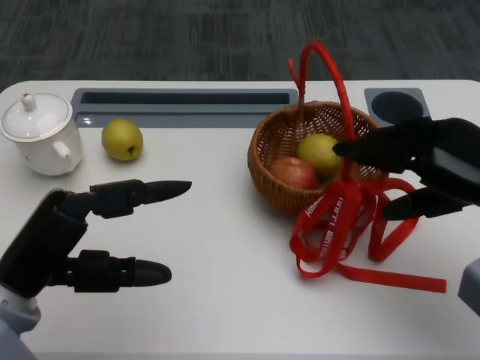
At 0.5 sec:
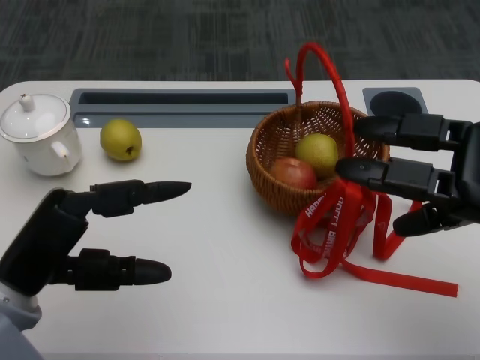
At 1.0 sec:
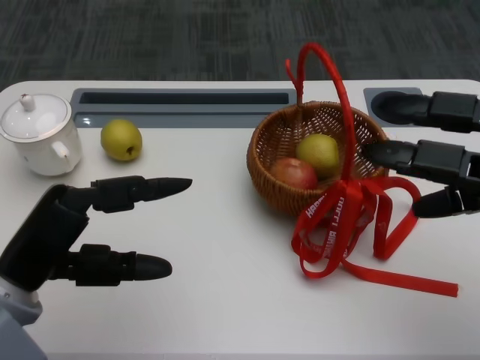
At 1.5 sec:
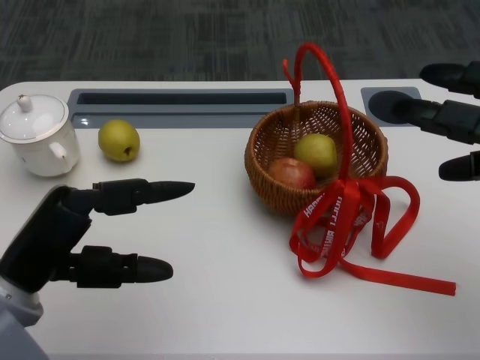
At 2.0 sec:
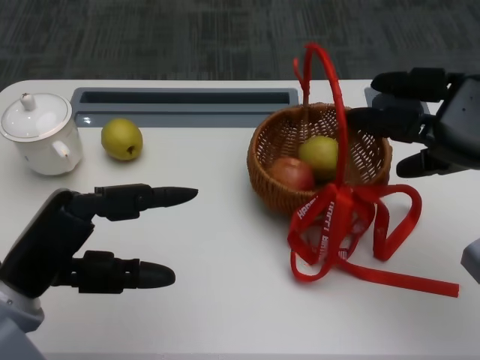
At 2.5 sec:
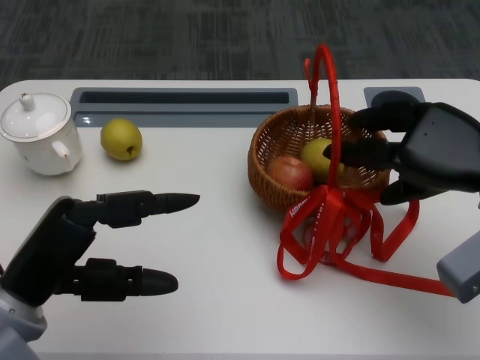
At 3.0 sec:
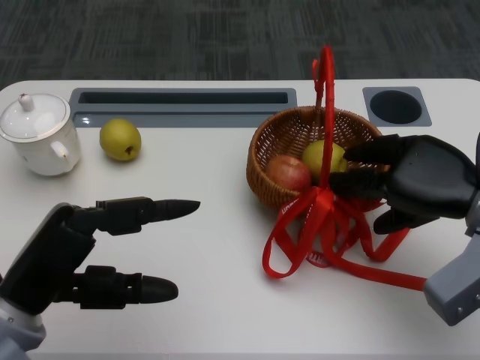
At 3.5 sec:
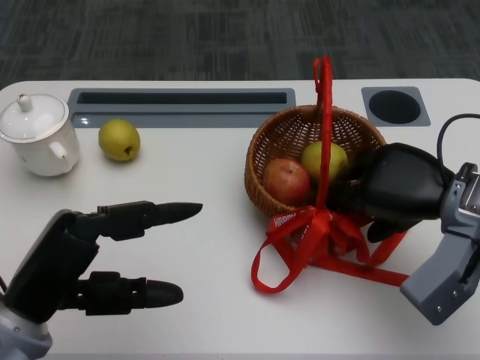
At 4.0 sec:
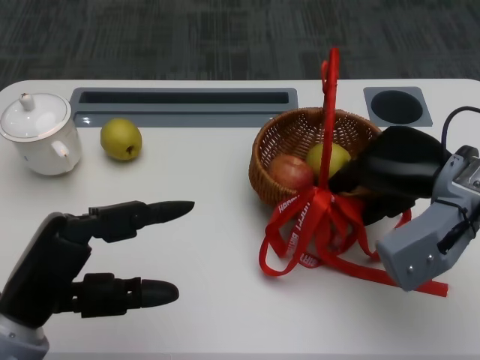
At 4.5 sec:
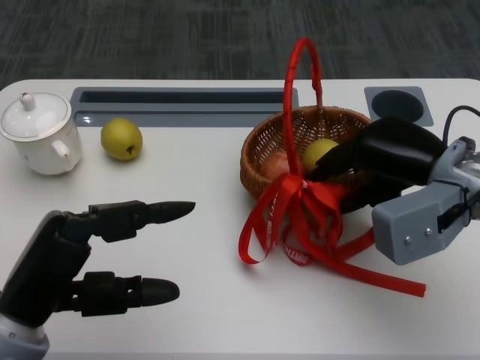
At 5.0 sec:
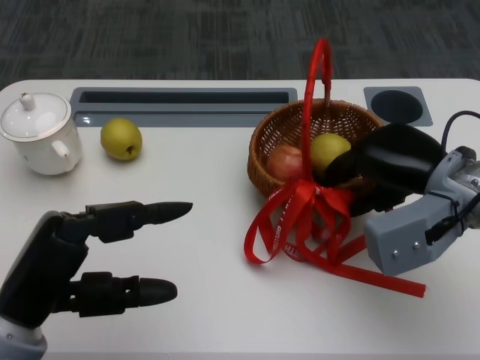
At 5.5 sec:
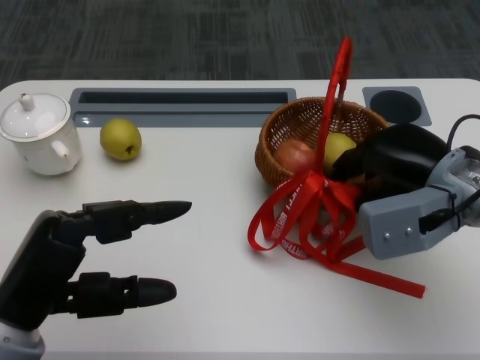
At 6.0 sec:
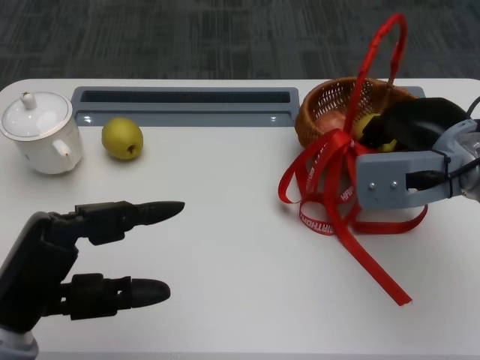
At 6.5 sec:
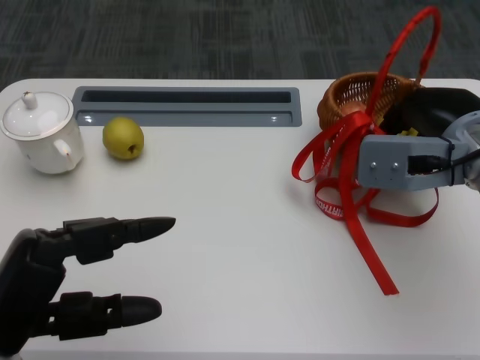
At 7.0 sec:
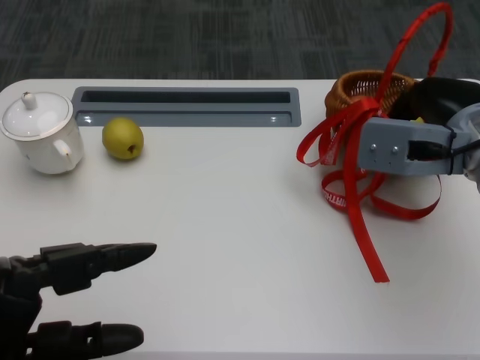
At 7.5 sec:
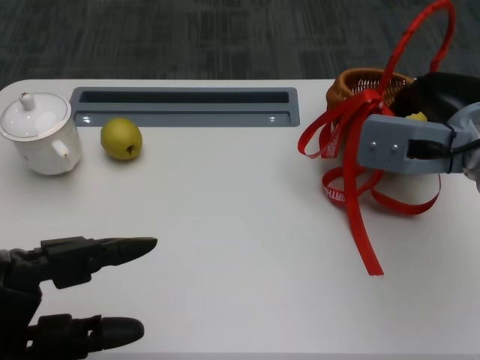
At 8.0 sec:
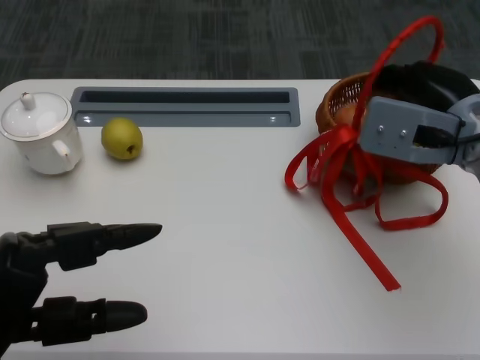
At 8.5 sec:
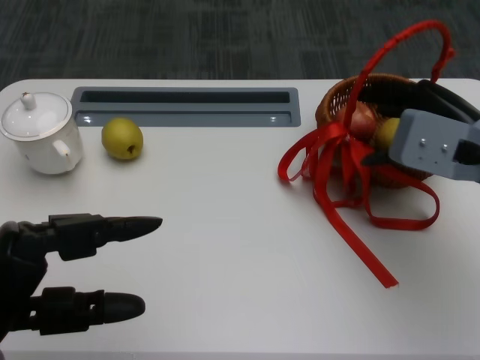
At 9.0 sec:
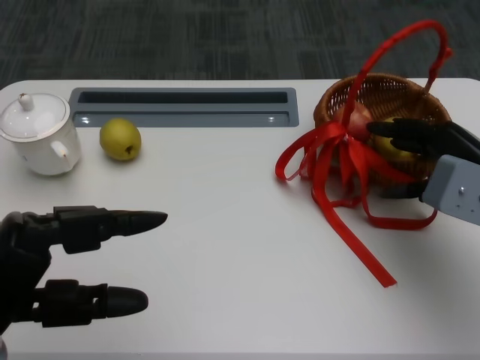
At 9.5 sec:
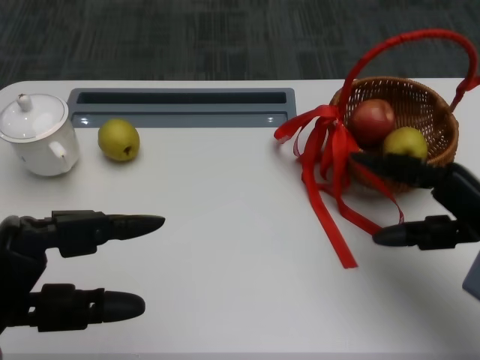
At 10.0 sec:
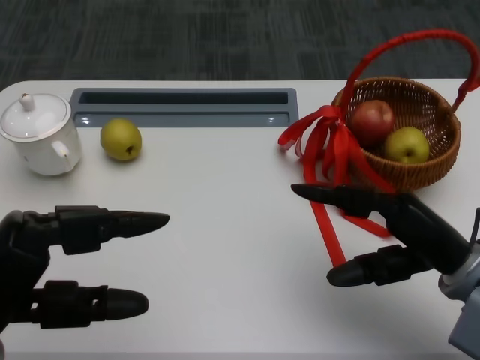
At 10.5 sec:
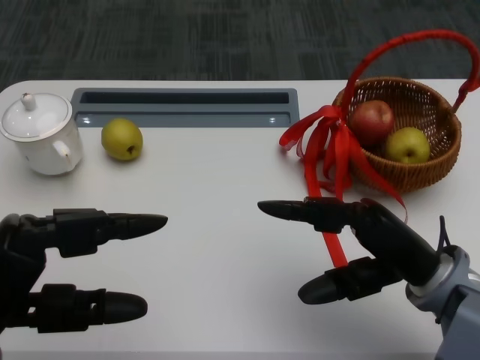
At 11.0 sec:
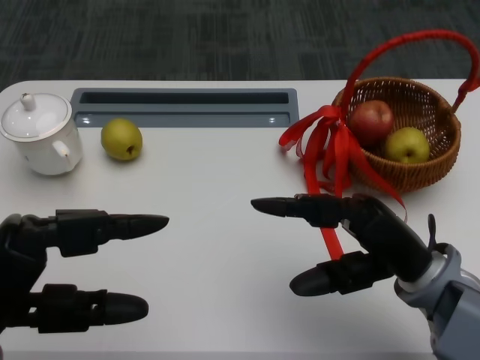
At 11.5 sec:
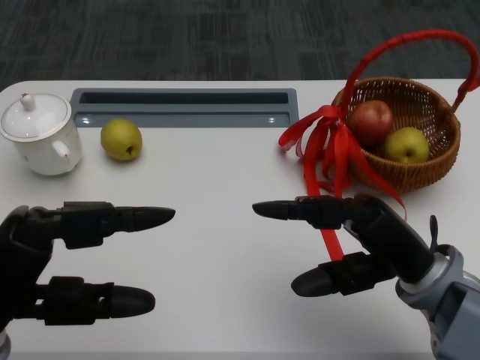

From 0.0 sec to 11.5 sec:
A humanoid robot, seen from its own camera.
Step, from 1.0 sec to 4.0 sec: Move the basket to the front of the table with the right gripper.
From 2.0 sec to 4.0 sec: The right hand is displaced to the left by approximately 5 cm.
From 7.5 sec to 9.5 sec: The right hand heads backward, downward and to the right, covering roughly 10 cm.
From 9.5 sec to 11.5 sec: The right hand heads to the left, covering some 10 cm.
